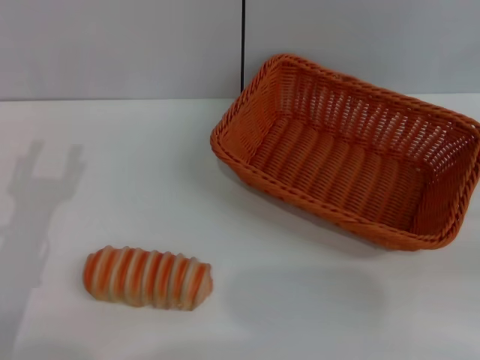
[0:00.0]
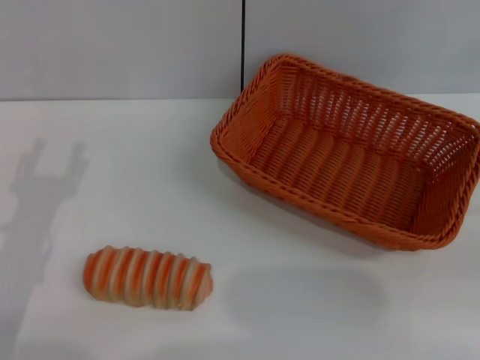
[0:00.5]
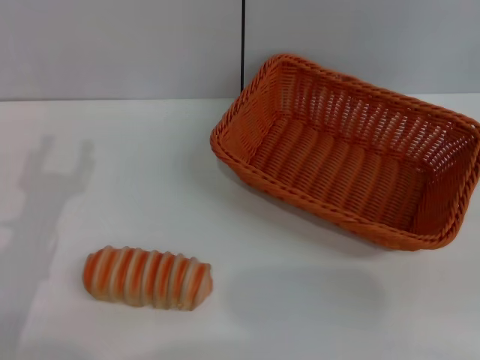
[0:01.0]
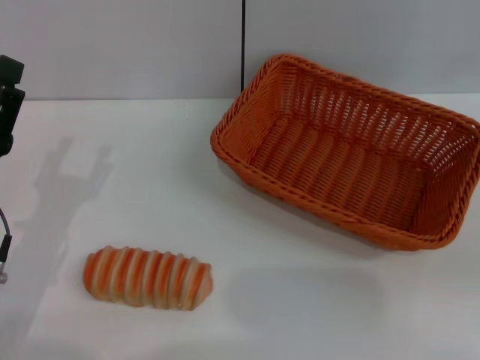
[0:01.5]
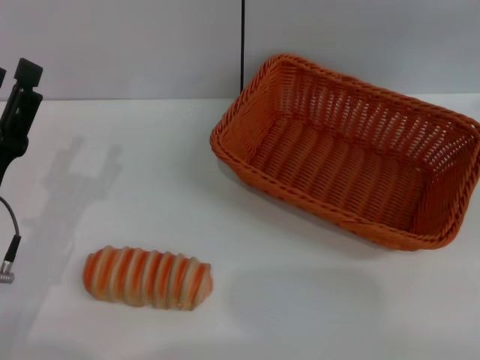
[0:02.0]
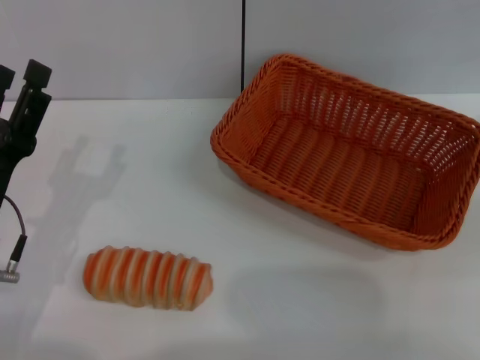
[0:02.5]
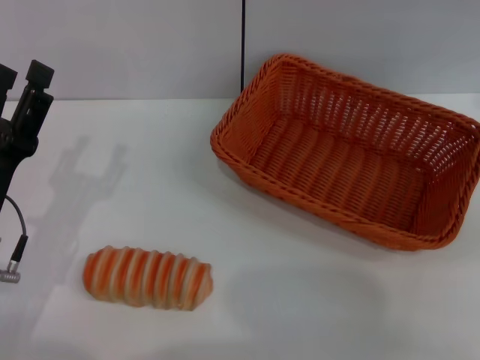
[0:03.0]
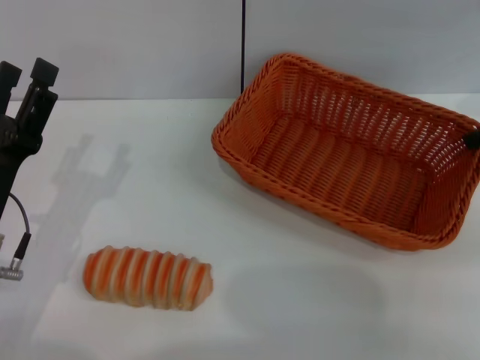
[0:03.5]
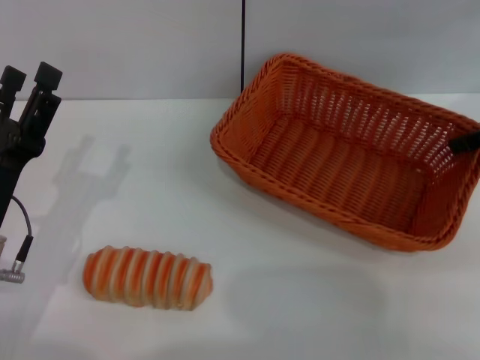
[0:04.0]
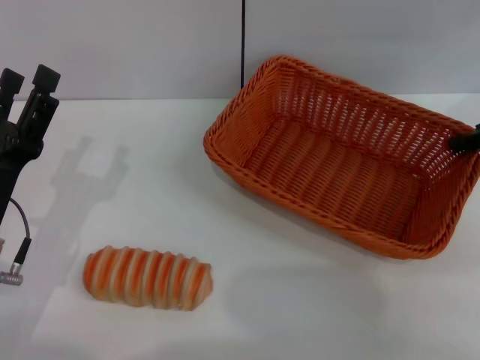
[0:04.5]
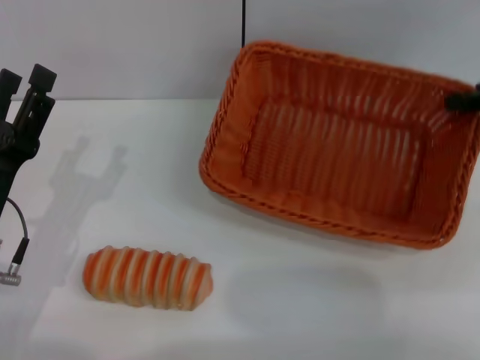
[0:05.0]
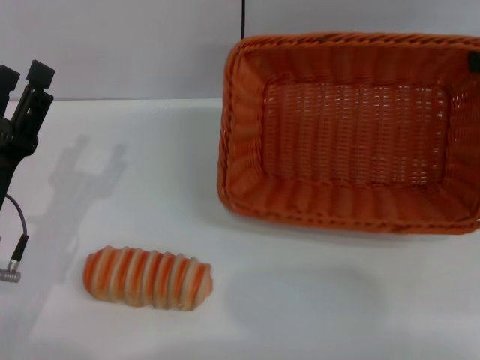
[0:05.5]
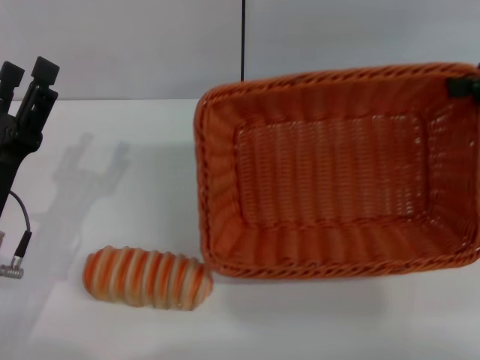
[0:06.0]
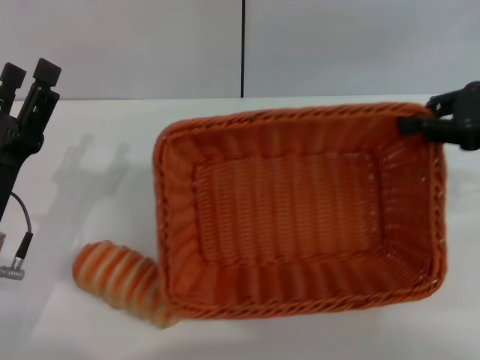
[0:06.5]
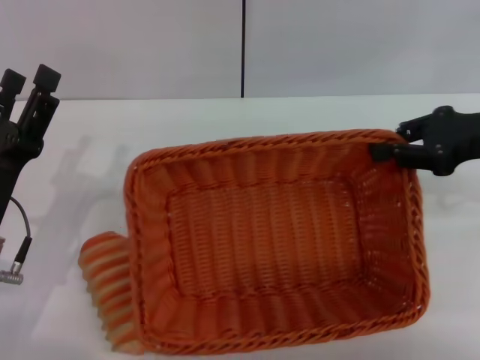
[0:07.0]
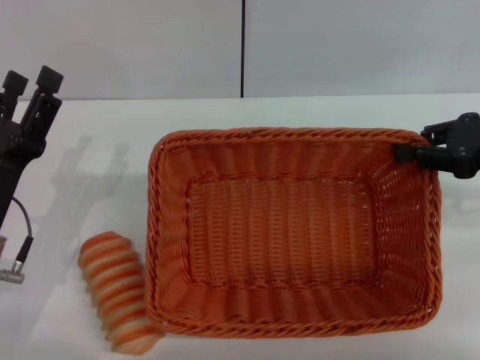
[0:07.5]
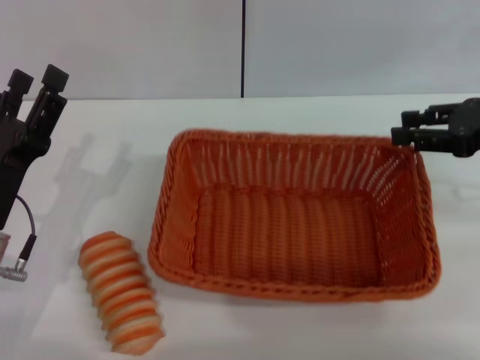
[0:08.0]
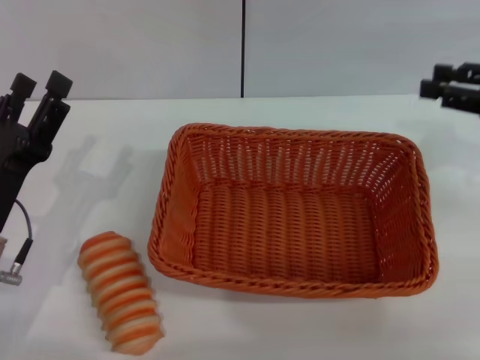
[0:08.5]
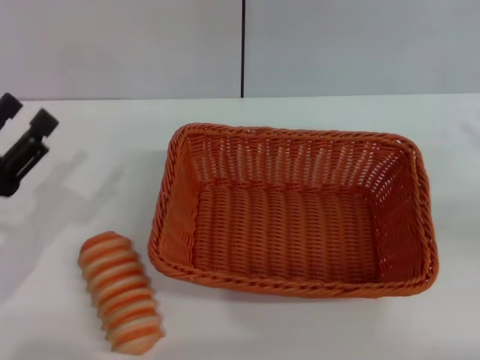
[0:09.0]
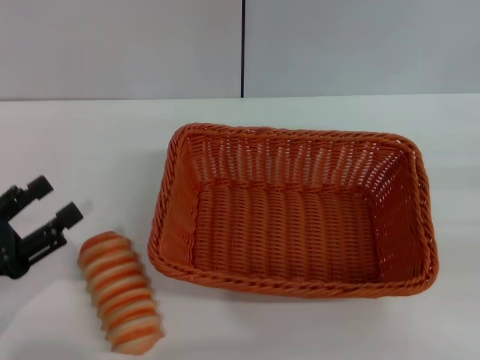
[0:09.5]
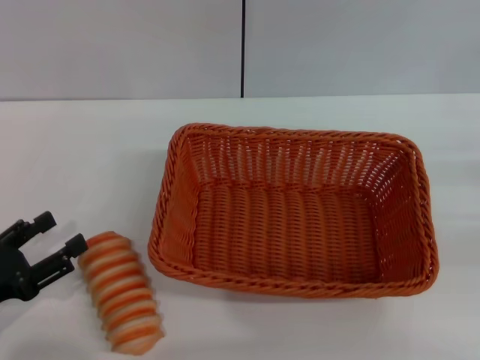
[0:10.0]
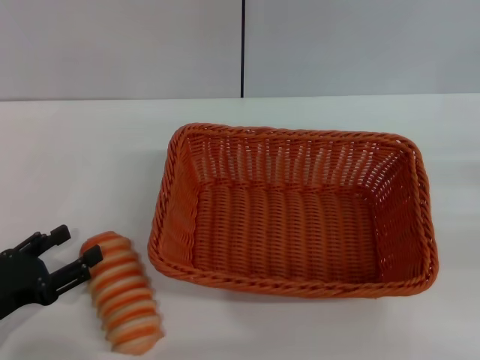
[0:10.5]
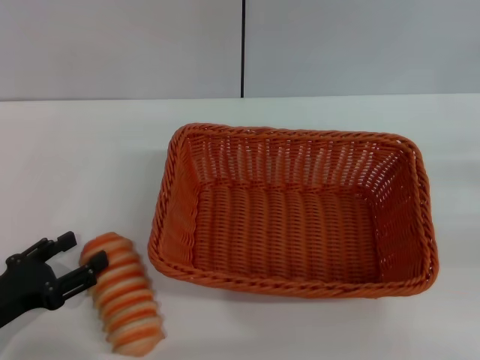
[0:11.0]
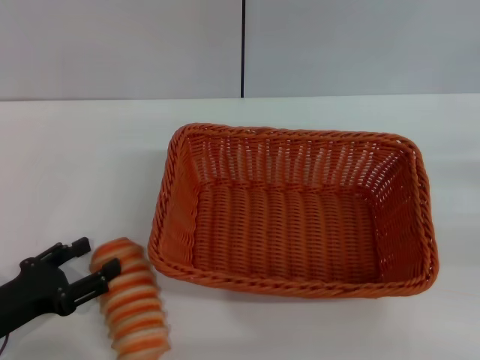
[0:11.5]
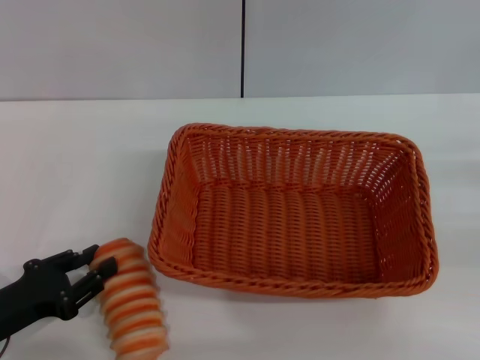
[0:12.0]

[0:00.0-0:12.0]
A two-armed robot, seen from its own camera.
Step, 0:00.0 to 0:05.0: Pick up the light basket with the right gripper.
Step, 0:05.5 to 0:08.0: Place the light basket in the center of view with the right gripper.
0:04.0 to 0:06.0: The right gripper shifts by roughly 5 cm, and closes its fingers.
0:06.0 to 0:08.0: The right gripper moves downward, approximately 5 cm.
0:08.0 to 0:10.0: The left gripper travels to the left and backward by about 10 cm. Meanwhile the right gripper heads to the right, backward and downward, covering roughly 15 cm, and opens up.
0:10.0 to 0:12.0: There are only small adjustments of the grippers.

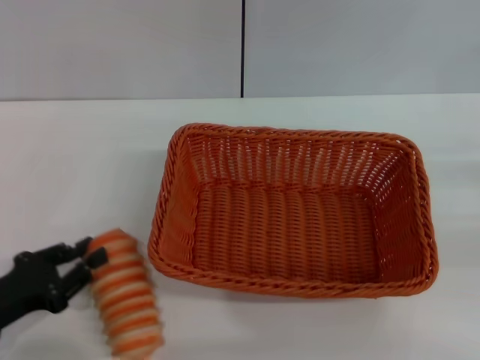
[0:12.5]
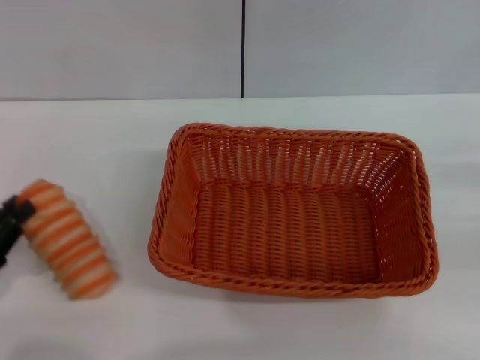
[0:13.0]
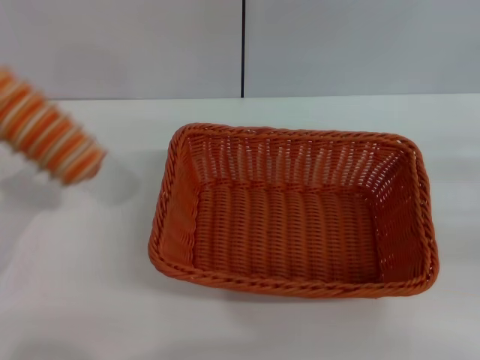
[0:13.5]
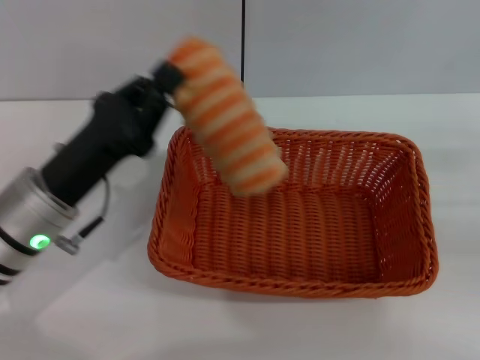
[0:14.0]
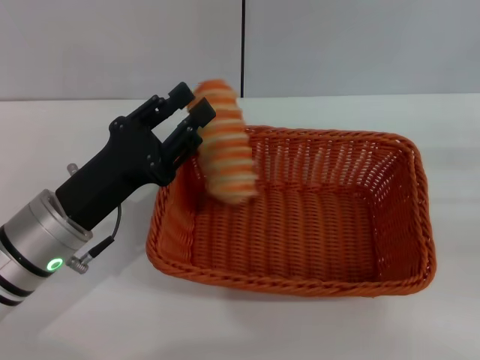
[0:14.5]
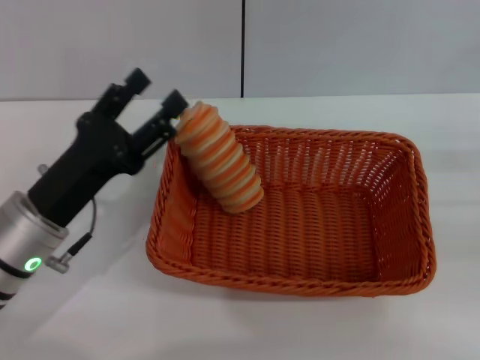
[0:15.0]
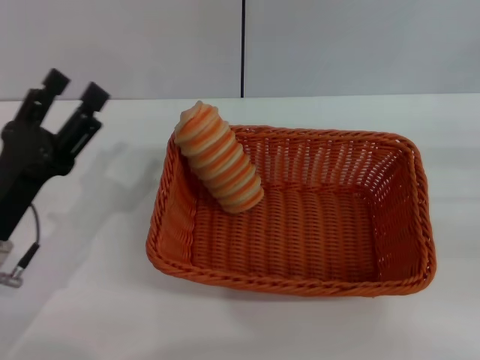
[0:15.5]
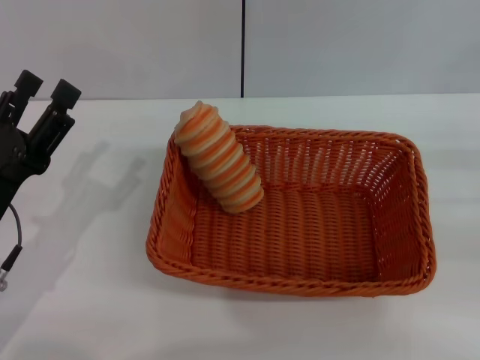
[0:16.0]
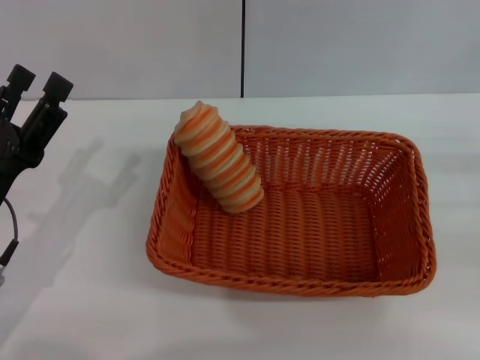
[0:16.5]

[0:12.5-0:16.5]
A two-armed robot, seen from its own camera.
Step, 0:13.5 to 0:14.5: Place the long bread into the light basket with the left gripper.
0:12.5 to 0:14.5: The left gripper heads to the right and forward, covering some 15 cm.
0:14.5 to 0:16.5: The left gripper moves to the left, about 5 cm, and opens its fingers.

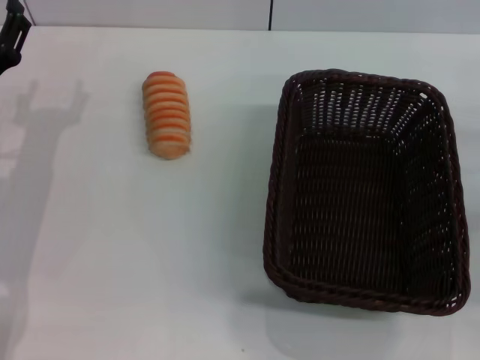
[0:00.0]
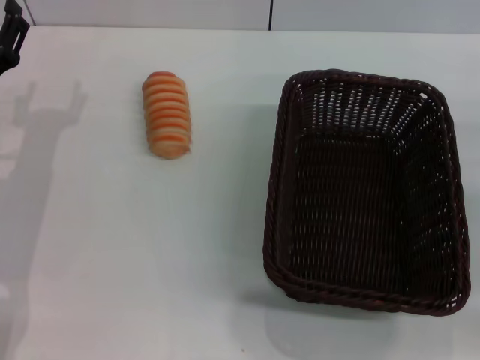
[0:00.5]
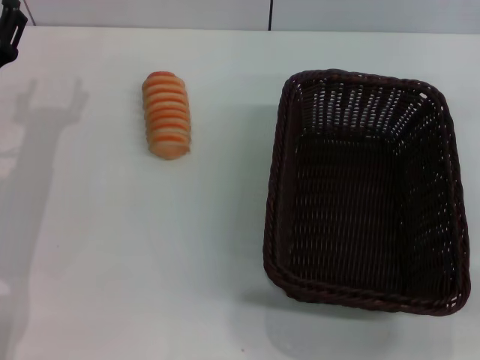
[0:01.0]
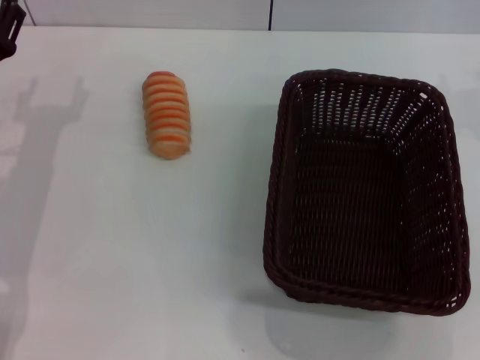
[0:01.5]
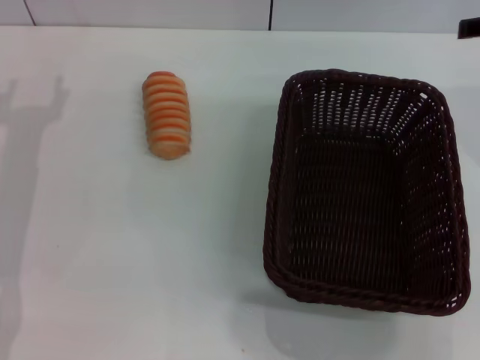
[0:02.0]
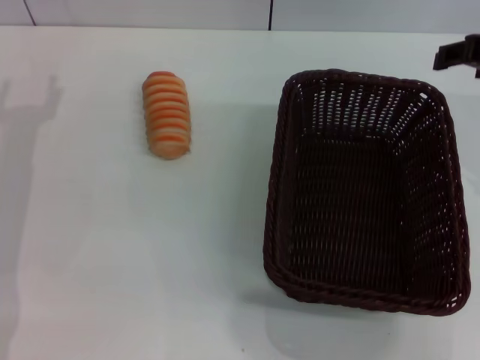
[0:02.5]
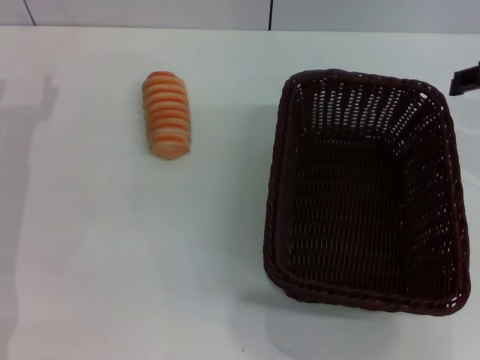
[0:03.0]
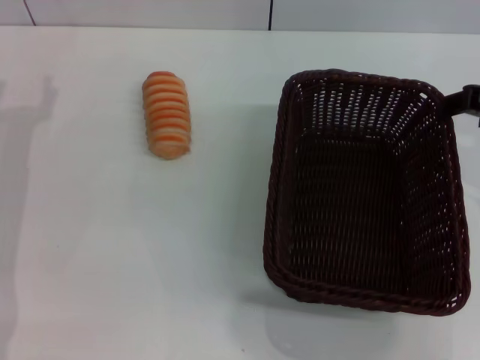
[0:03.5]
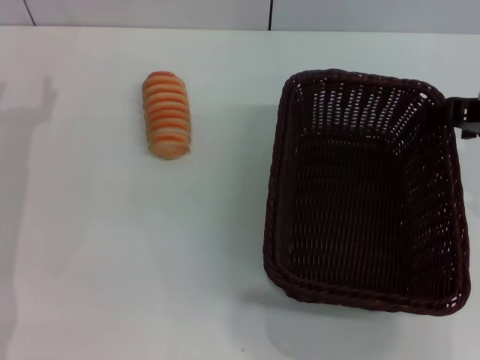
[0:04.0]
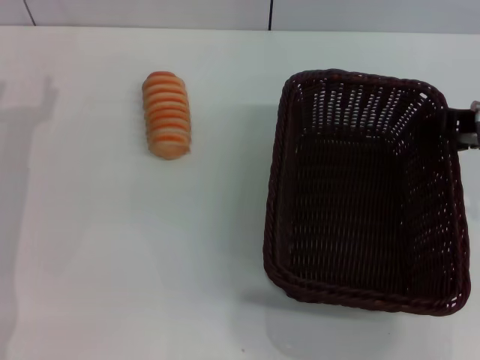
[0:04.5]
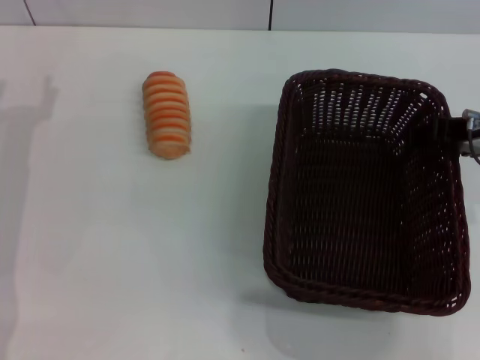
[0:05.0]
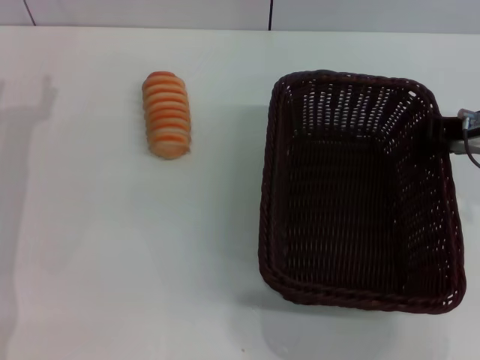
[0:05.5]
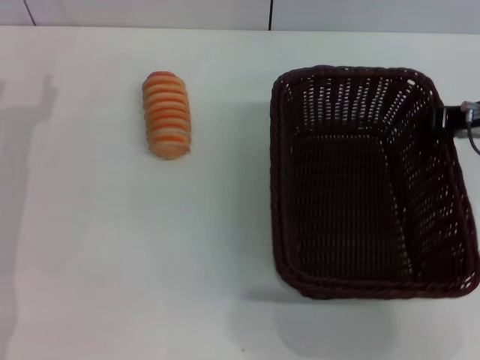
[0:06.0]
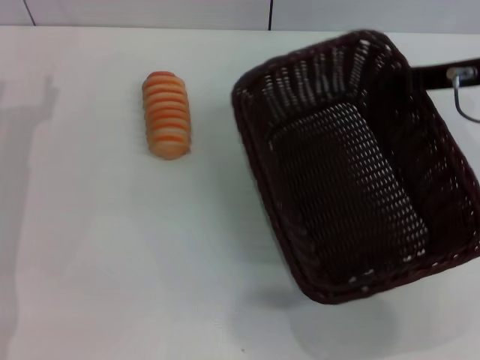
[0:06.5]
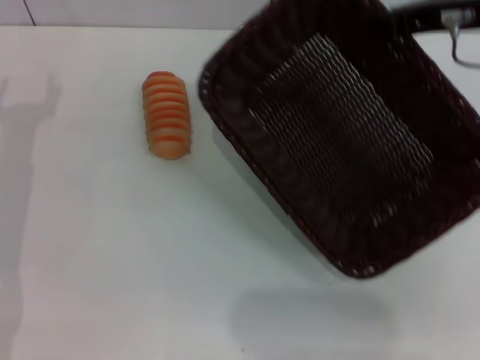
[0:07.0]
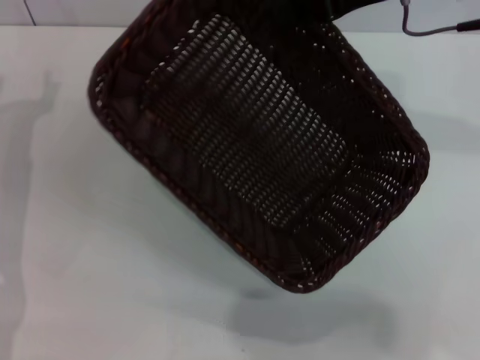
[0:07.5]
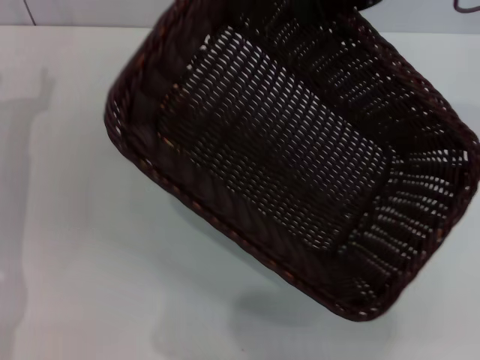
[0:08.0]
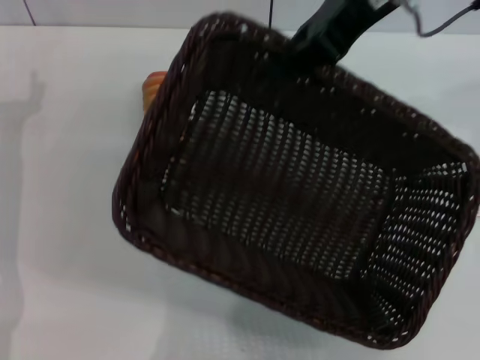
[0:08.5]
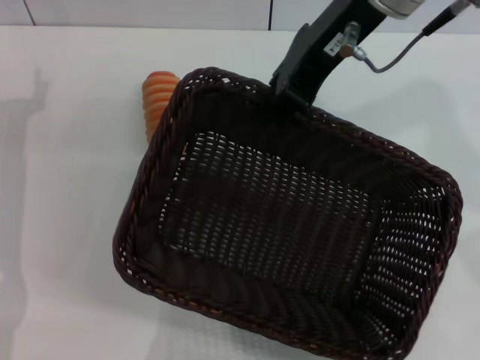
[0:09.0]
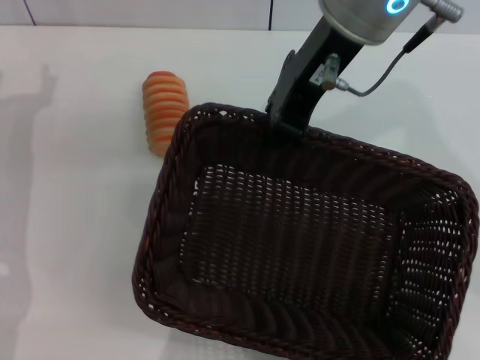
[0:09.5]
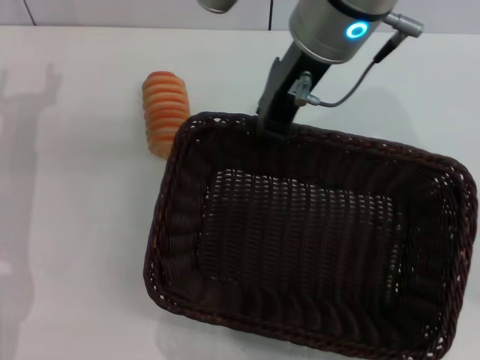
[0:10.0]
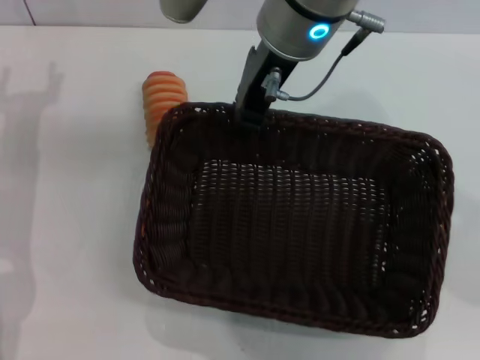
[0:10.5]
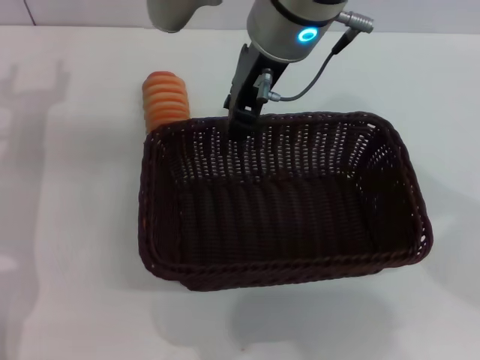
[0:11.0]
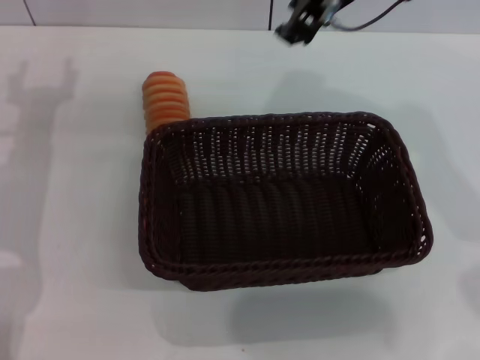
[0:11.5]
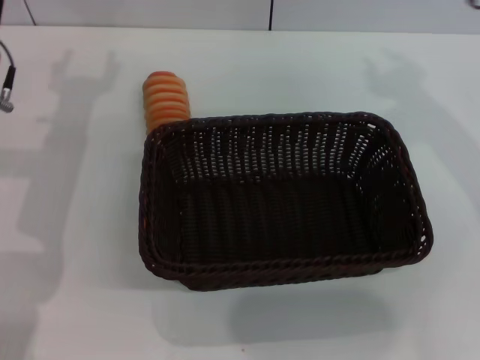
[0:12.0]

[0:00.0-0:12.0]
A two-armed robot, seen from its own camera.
Step, 0:00.0 to 0:06.5: Pick up the dark basket with the right gripper.
Step, 0:07.0 to 0:11.0: Place the dark basket in the center of view with the right gripper.
0:00.0 to 0:02.0: The right gripper is displaced upward, to the left and forward by roughly 20 cm.
0:02.0 to 0:04.0: The right gripper moves about 5 cm.
0:04.0 to 0:06.0: The right gripper closes up.
0:06.0 to 0:08.0: The right gripper heads upward and to the left, covering some 15 cm.
0:08.0 to 0:10.0: The right gripper goes approximately 15 cm to the left and downward.
0:10.0 to 0:12.0: The right gripper heads to the right, covering roughly 15 cm, and opens its fingers. The left gripper changes place by about 5 cm.
